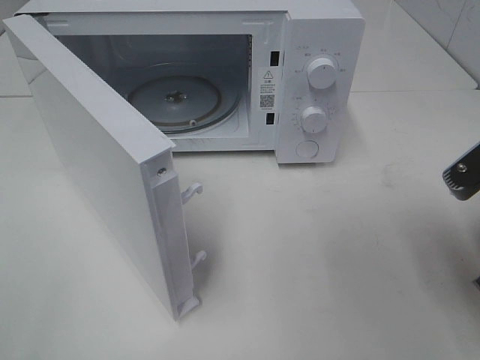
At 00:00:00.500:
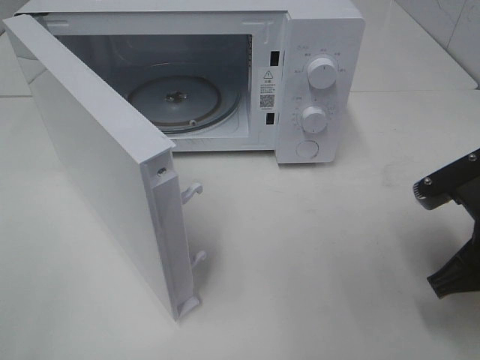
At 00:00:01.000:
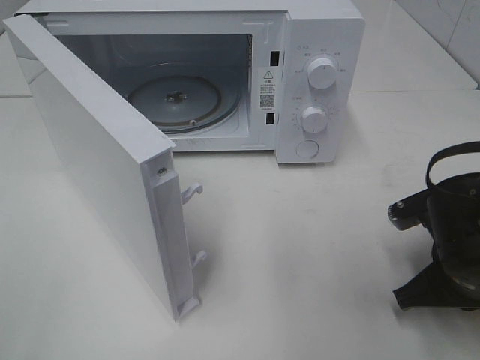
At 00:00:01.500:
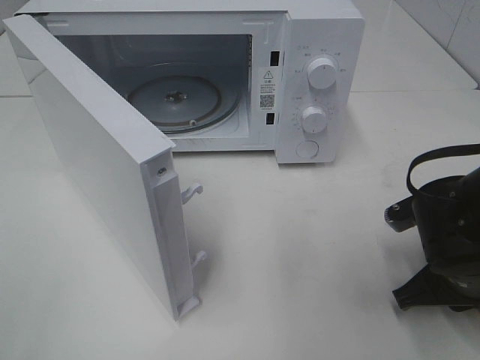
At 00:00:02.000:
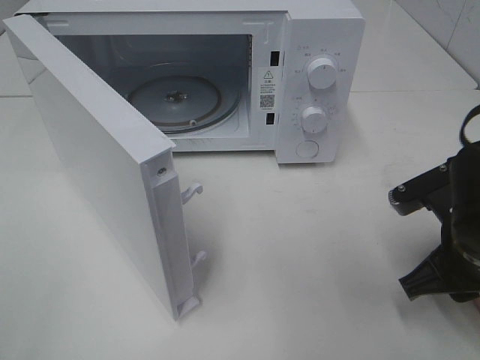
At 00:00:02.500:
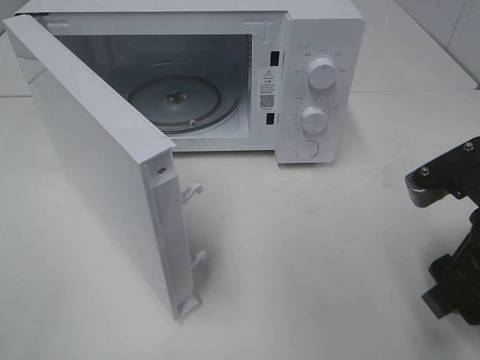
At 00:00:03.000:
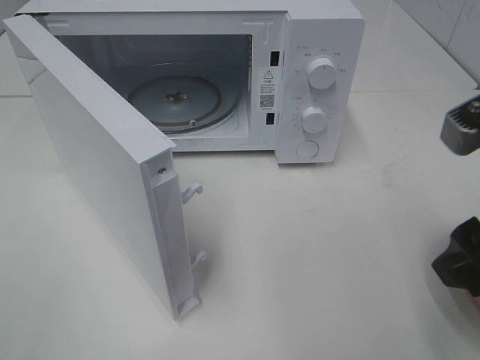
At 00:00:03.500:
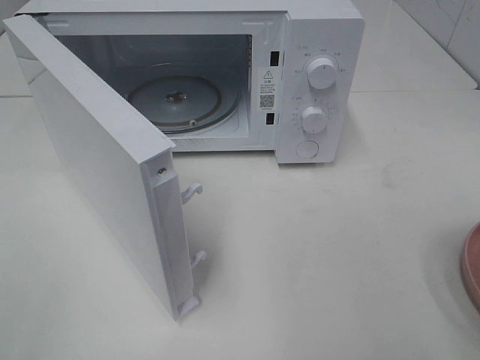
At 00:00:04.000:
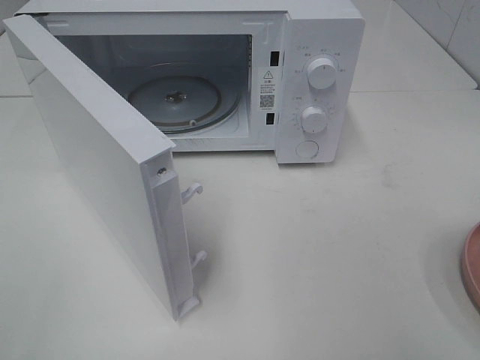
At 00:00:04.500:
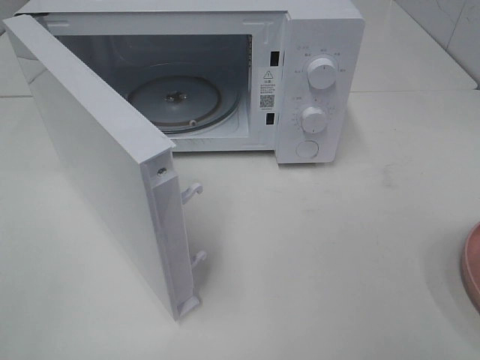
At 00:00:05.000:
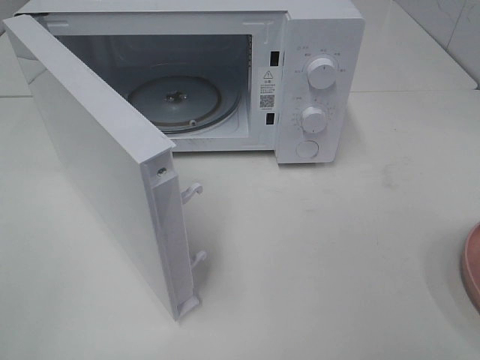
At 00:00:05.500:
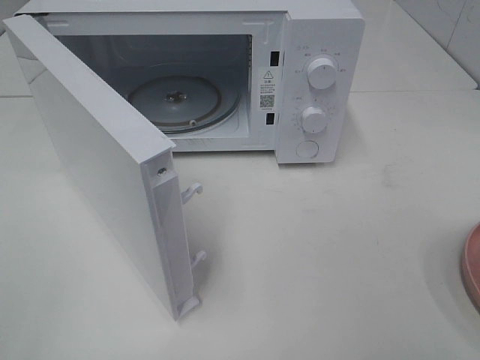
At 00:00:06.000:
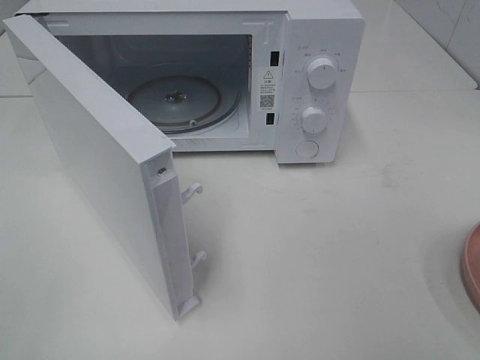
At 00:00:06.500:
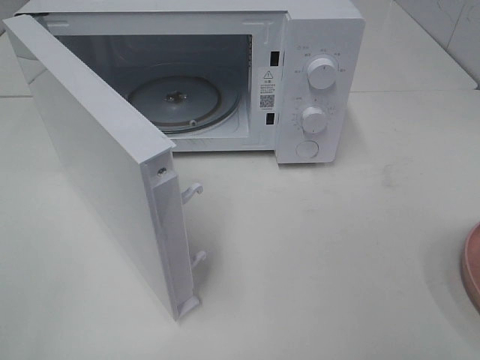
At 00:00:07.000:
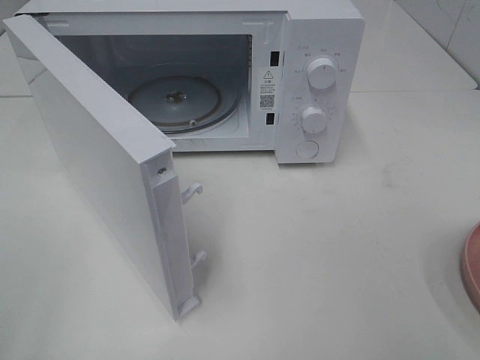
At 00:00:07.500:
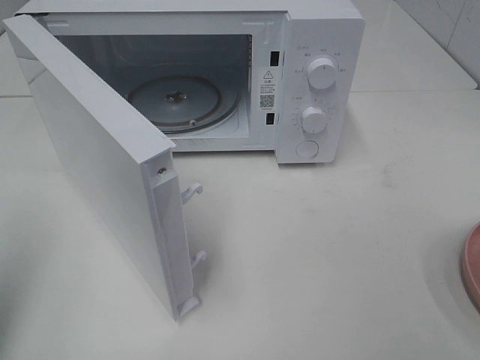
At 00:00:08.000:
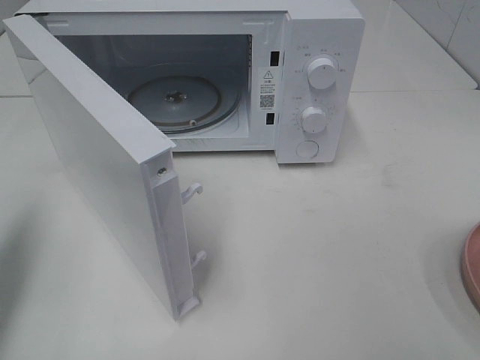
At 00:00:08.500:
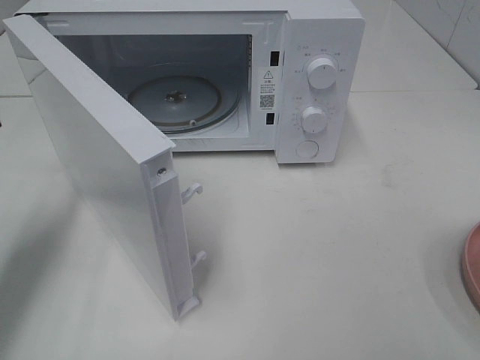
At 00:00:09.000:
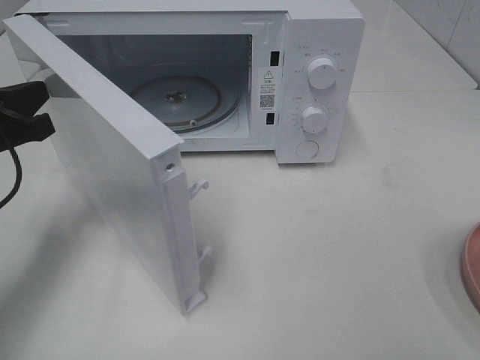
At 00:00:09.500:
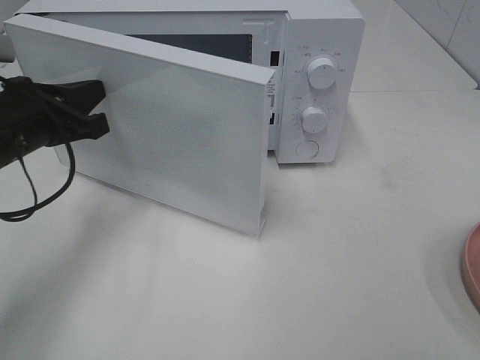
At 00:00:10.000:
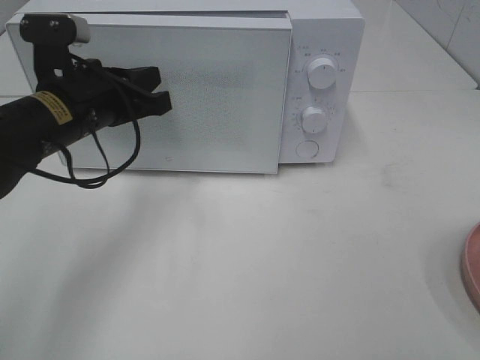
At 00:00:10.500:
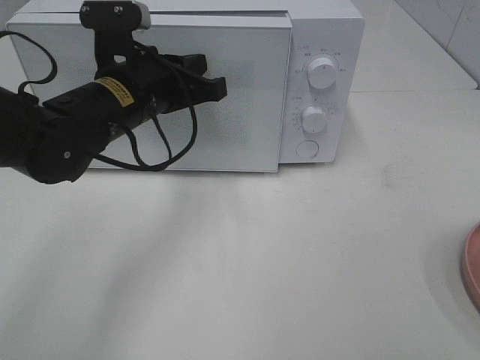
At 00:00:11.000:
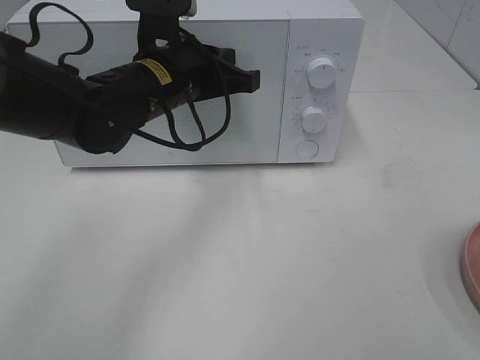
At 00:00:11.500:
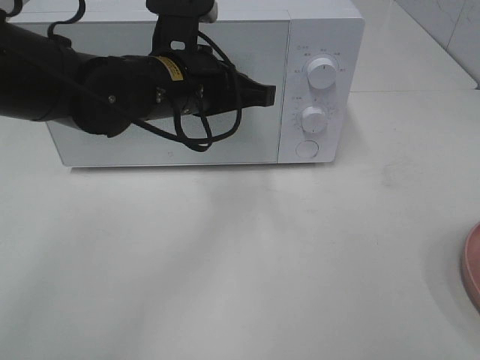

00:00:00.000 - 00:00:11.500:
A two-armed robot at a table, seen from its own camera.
Task of the whole recording: Heat the burger.
Step, 00:00:02.000 - 00:00:11.000: Left hand: close the microwave door.
00:00:00.000 - 00:00:02.000: The right gripper heads downward, covering some 5 cm, and opens.
00:00:02.000 - 00:00:04.000: The right gripper moves upward and backward, about 25 cm.
00:00:06.000 - 00:00:07.500: The left gripper travels forward by about 10 cm, and closes up.
00:00:07.500 - 00:00:09.500: The left gripper moves forward, downward and to the right, roughly 25 cm.
00:00:09.500 - 00:00:11.500: The left gripper goes some 15 cm to the right.

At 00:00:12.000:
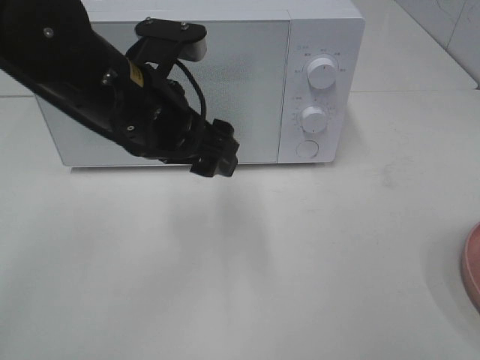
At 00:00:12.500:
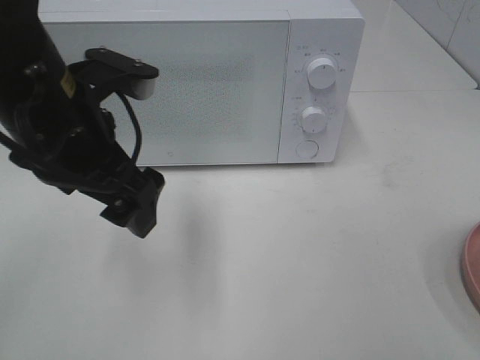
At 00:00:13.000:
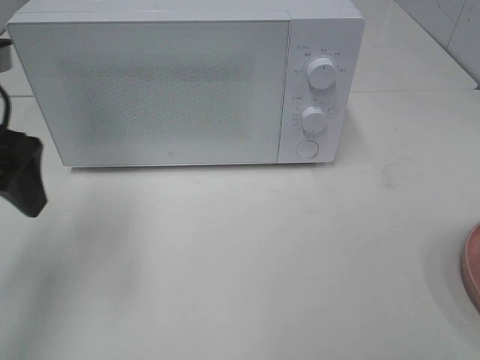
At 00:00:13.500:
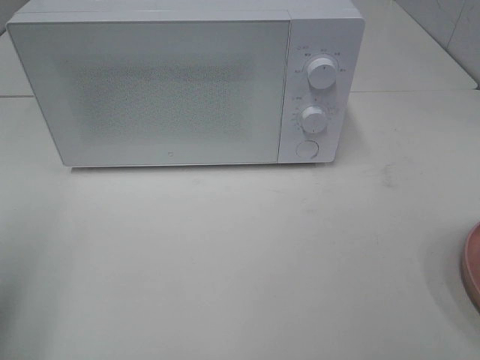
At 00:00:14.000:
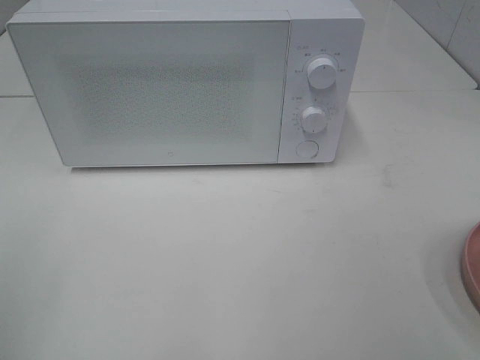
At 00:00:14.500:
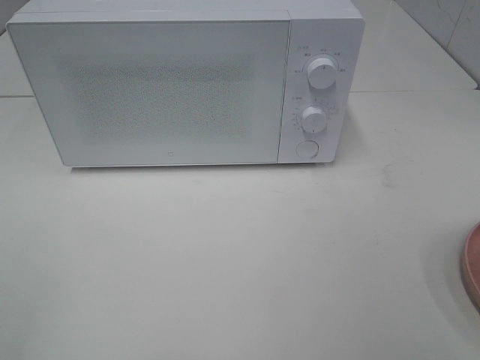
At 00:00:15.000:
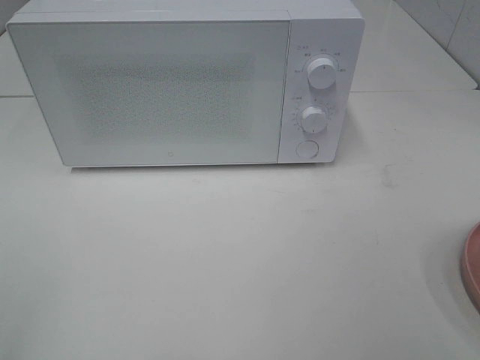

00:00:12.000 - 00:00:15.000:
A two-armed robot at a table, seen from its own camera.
Task of the whole recording: Heat the burger.
00:00:12.000 - 00:00:13.500: The left gripper shifts about 25 cm to the left and backward.
00:00:13.500 - 00:00:15.000: The left gripper travels backward by about 15 cm.

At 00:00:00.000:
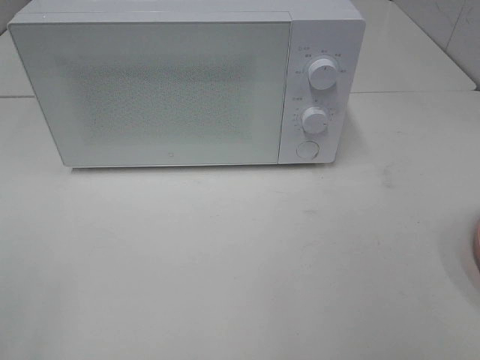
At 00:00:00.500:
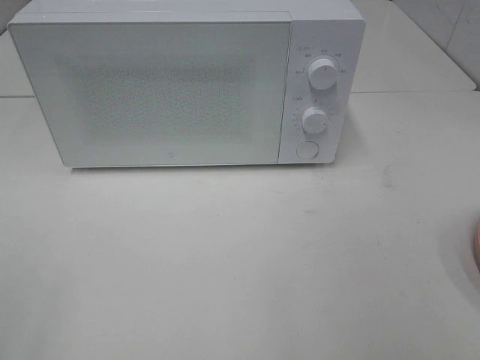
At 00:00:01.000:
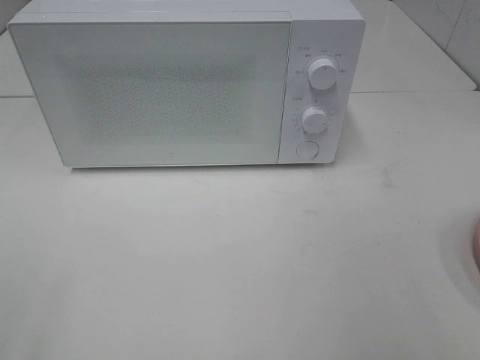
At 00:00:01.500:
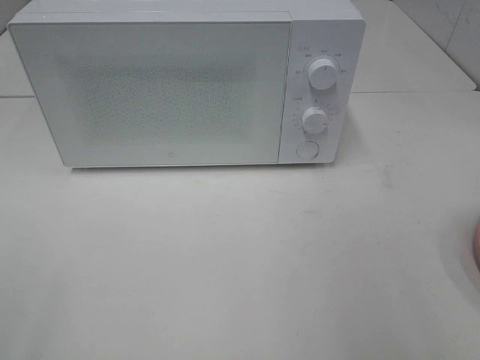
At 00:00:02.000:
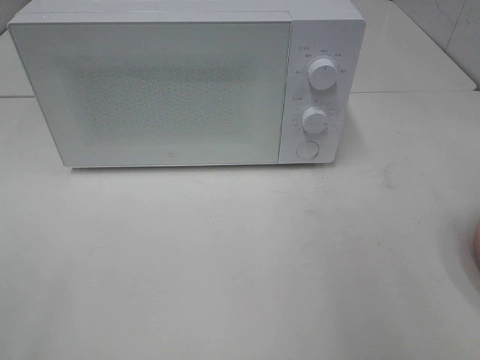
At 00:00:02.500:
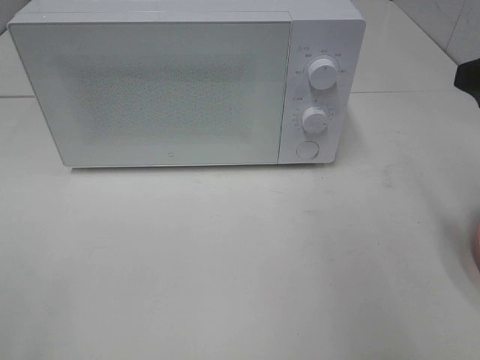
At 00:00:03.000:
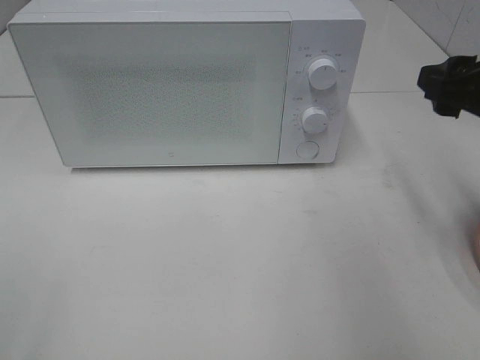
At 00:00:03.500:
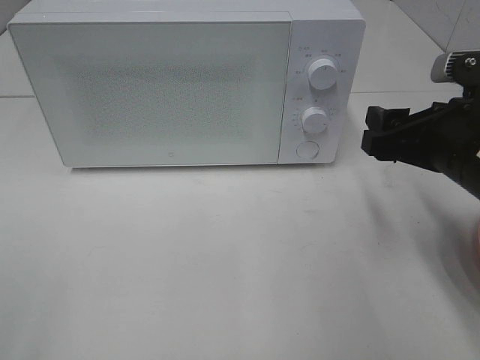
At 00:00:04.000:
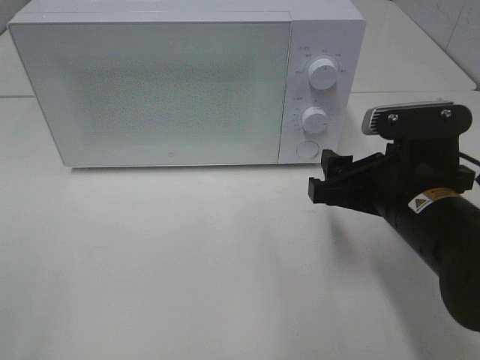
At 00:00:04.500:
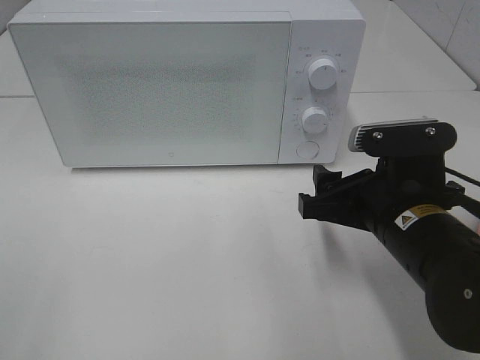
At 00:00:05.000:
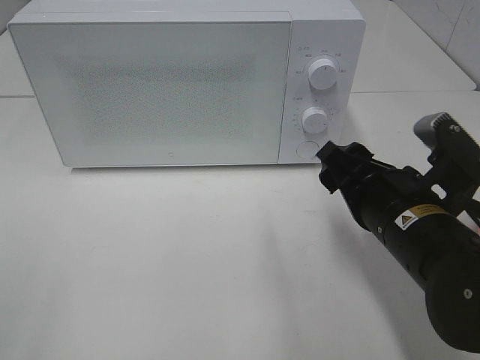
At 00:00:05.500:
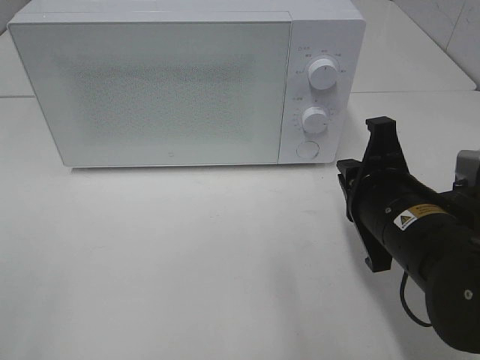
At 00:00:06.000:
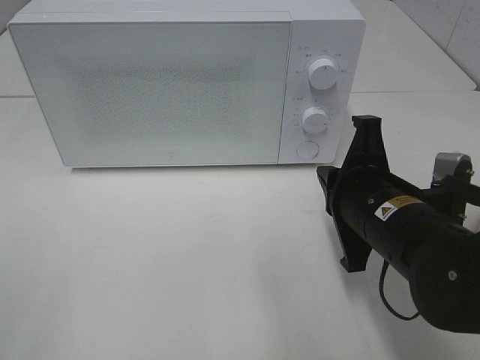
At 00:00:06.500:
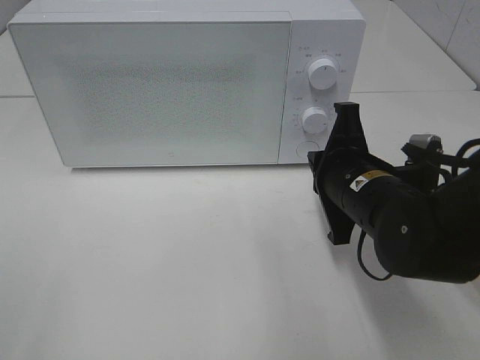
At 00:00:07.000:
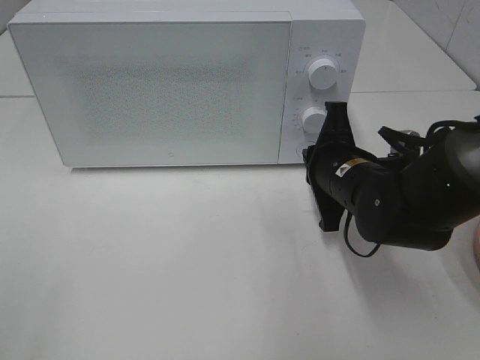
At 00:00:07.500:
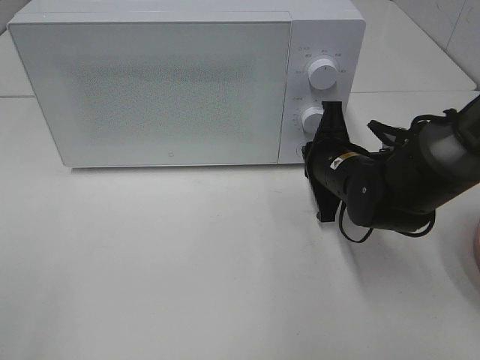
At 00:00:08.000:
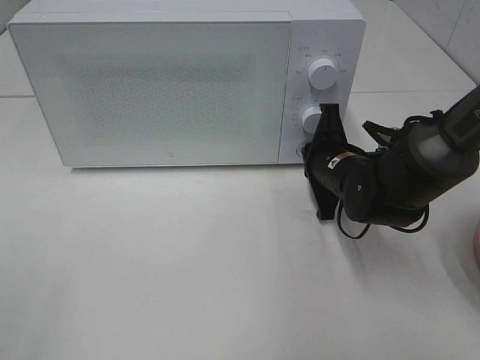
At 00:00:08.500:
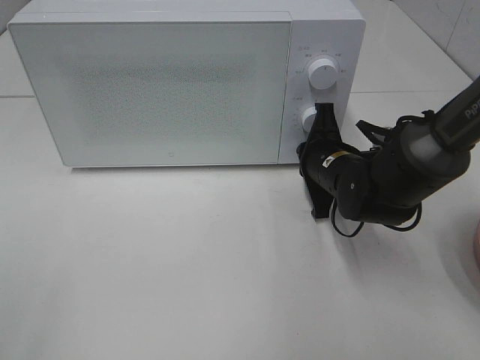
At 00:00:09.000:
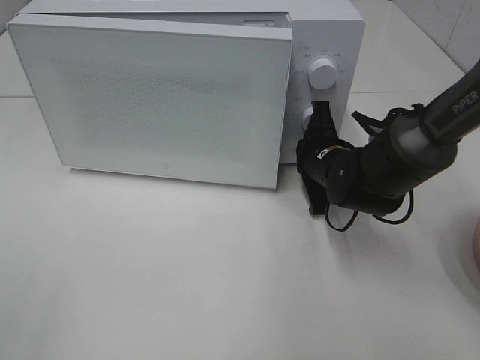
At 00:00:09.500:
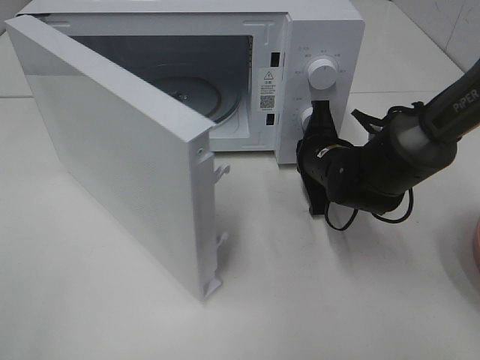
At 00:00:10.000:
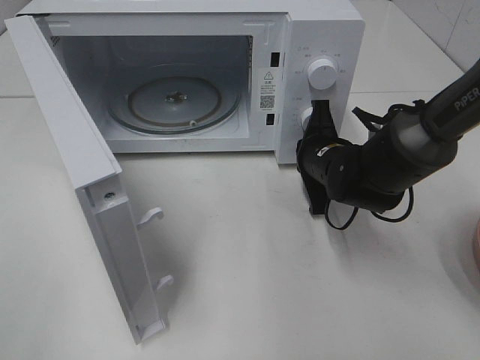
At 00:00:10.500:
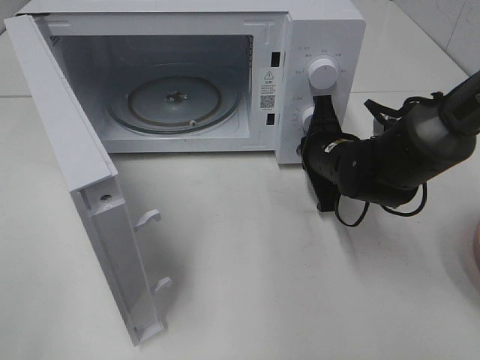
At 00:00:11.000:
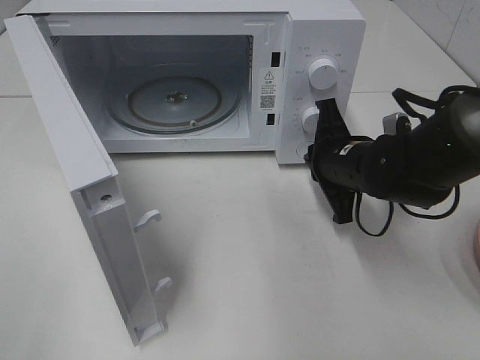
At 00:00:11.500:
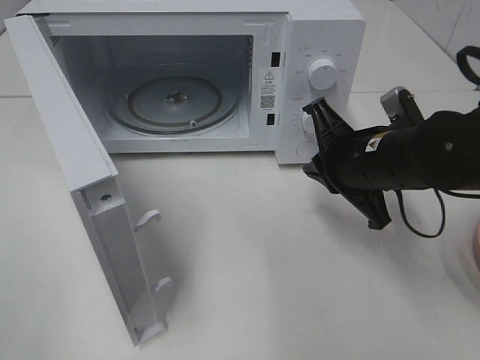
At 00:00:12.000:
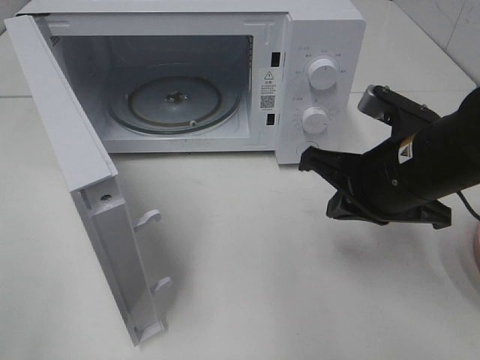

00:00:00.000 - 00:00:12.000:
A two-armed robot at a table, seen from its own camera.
Task of the whole recording: Heat the burger.
Step, 00:00:00.000 - 00:00:10.500: Right hand: press the switch.
00:00:02.000 - 00:00:04.000: The right gripper heads downward, to the left and forward, covering about 20 cm.
00:00:04.000 - 00:00:06.000: The right gripper closes up.
00:00:06.000 - 00:00:08.000: The right gripper heads forward and downward, covering some 15 cm.
00:00:10.000 - 00:00:12.000: The right gripper shifts some 15 cm backward and upward.
